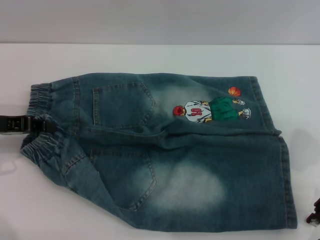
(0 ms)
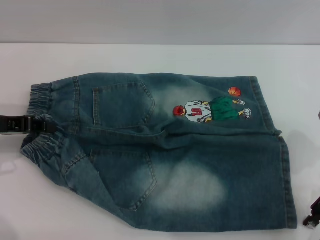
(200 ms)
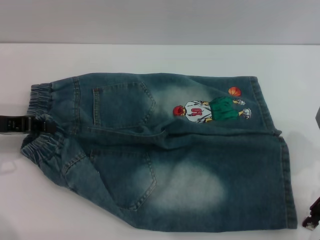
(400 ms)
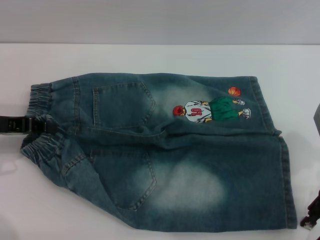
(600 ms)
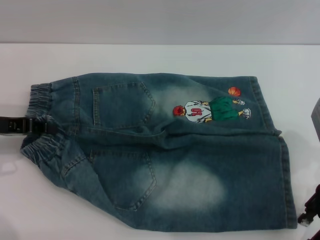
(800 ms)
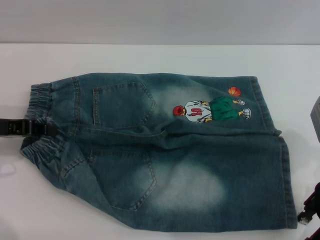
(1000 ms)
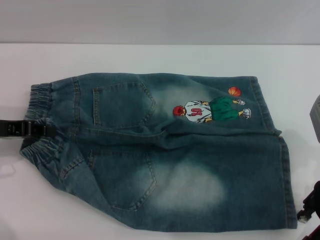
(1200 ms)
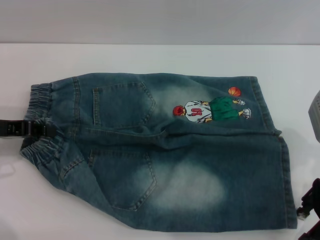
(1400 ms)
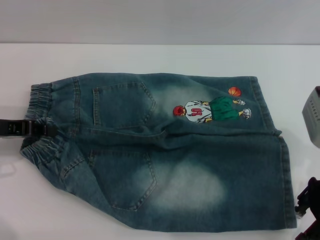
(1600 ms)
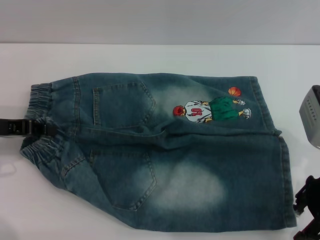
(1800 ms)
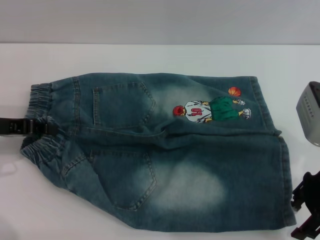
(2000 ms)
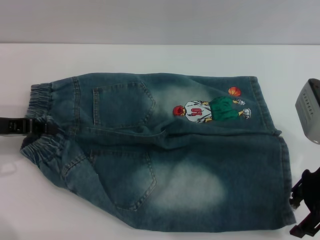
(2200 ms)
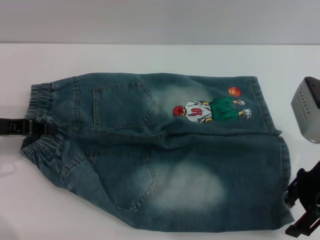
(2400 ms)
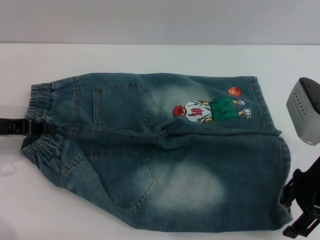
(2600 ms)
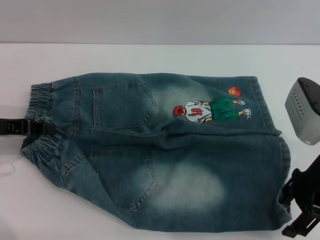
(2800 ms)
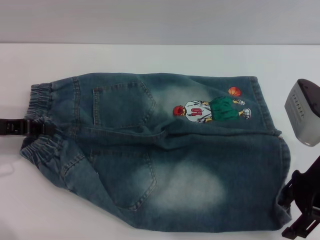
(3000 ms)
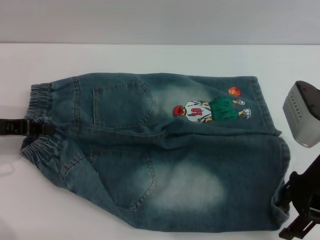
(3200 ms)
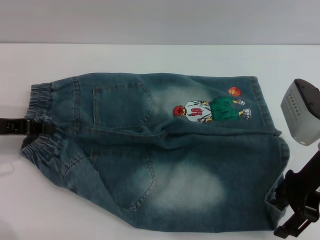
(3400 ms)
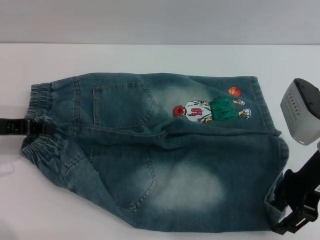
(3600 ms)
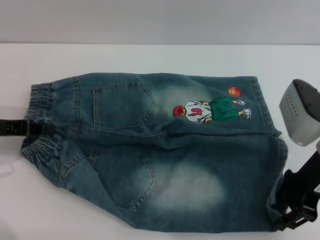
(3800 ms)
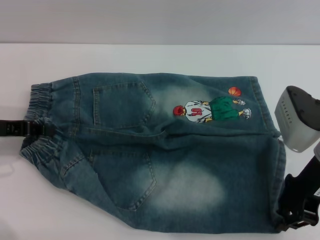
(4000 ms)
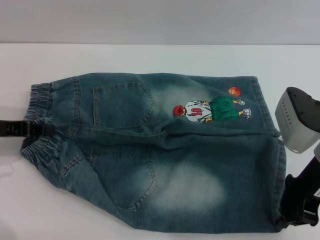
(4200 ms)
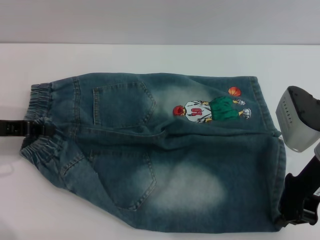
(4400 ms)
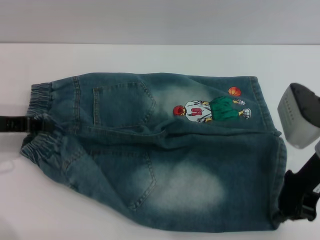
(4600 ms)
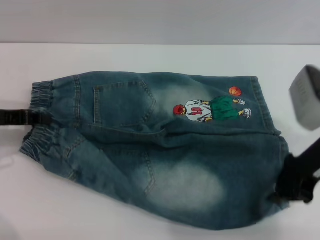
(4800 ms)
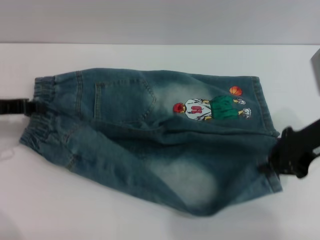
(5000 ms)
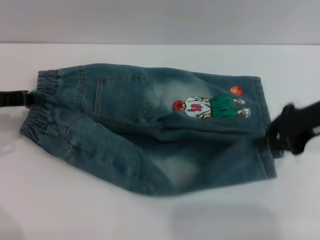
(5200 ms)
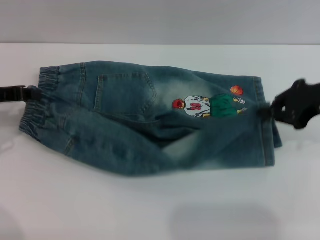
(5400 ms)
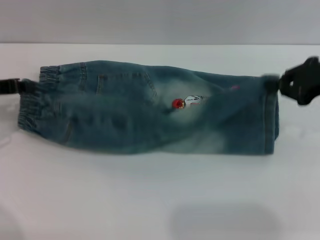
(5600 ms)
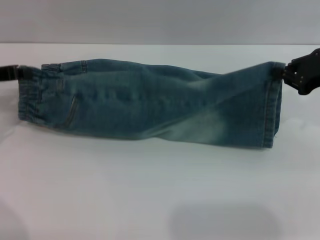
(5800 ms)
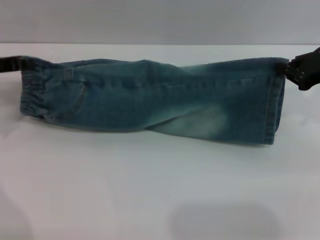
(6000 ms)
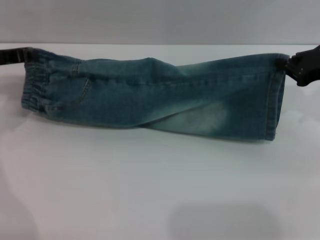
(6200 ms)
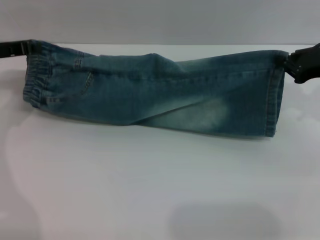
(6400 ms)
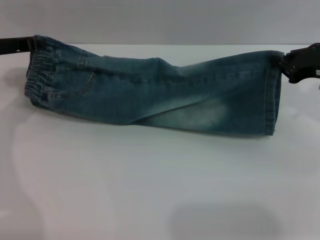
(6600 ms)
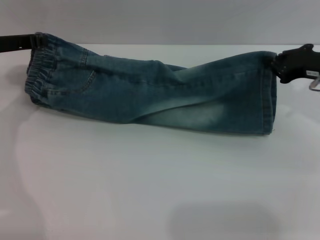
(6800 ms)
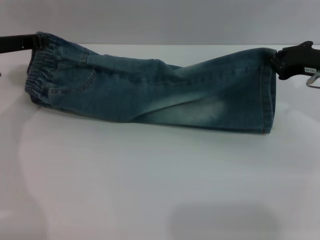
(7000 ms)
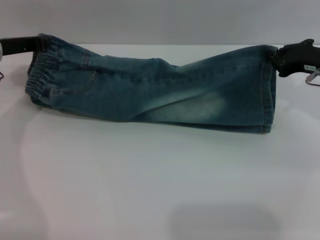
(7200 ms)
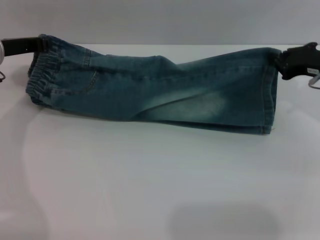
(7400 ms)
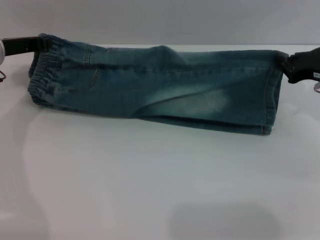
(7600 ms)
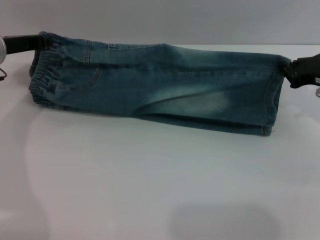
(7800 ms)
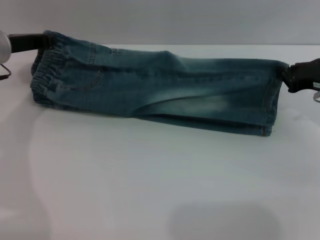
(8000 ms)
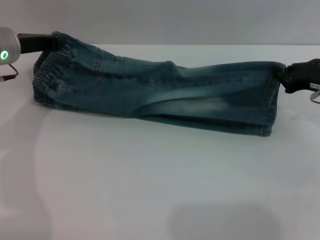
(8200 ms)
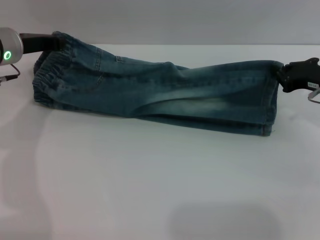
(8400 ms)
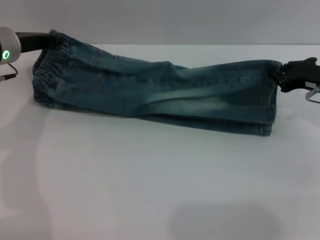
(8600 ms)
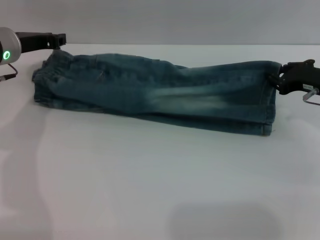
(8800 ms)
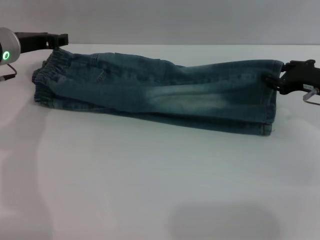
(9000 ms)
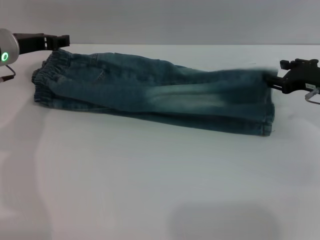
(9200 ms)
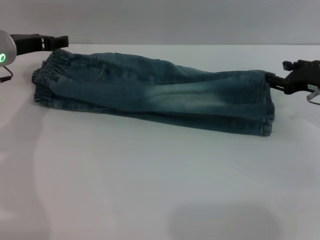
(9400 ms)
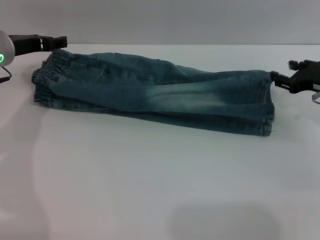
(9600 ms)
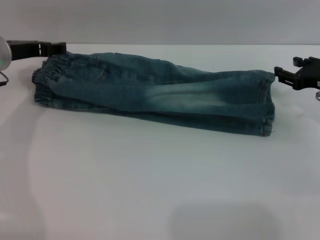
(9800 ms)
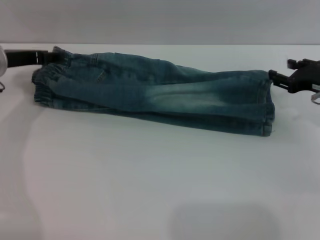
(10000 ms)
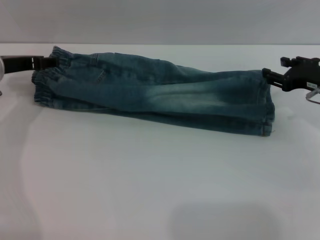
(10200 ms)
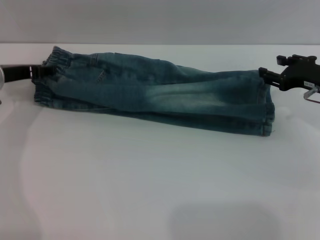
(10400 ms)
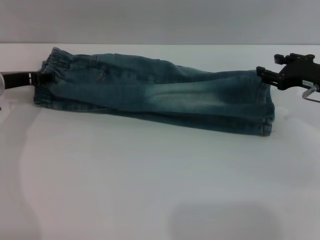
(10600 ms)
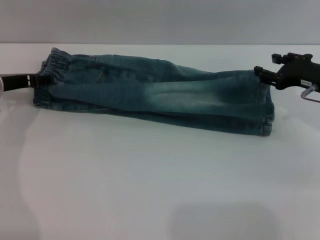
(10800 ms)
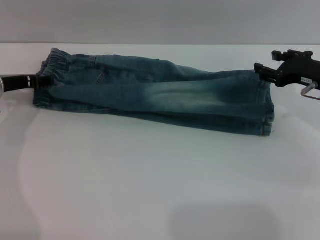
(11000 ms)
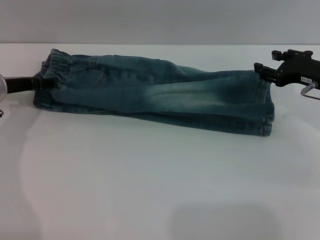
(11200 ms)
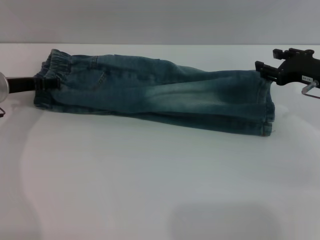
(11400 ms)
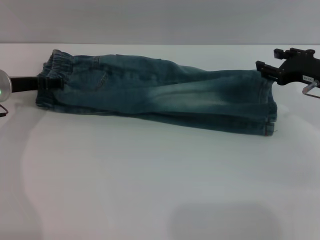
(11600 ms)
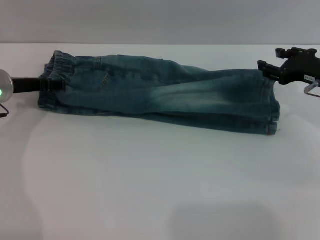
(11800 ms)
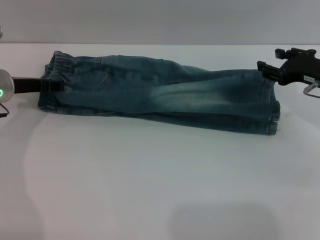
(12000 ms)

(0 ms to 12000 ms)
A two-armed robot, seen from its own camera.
Step, 0 ms - 9600 ms: Fold the bottom of the pants upward with both grippers.
0 ms - 3000 ms: The grippers move only a little.
3000 ms - 4400 ms: The right gripper closes its fingers.
4400 ms - 6000 ms: The right gripper moves to the right and forward, about 10 cm; the left gripper travels forward by approximately 5 cm.
6000 ms - 7600 ms: The left gripper shifts by about 5 cm.
7600 ms - 9000 ms: The left gripper opens its fingers. The right gripper opens.
9000 ms - 10400 ms: The right gripper opens. Meanwhile the left gripper ends up some 5 cm from where it was, and opens.
10400 ms - 12000 ms: The grippers stay close to where they were, moving slightly.

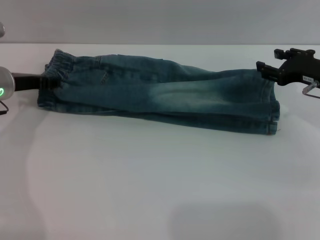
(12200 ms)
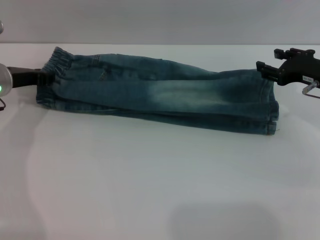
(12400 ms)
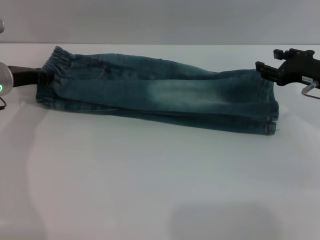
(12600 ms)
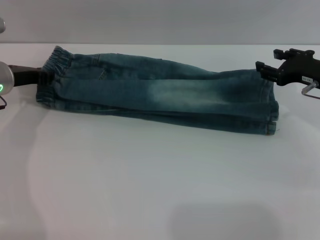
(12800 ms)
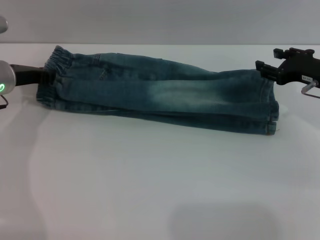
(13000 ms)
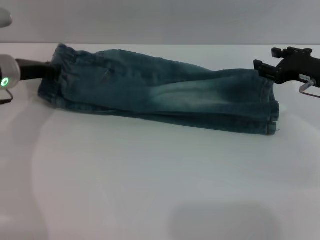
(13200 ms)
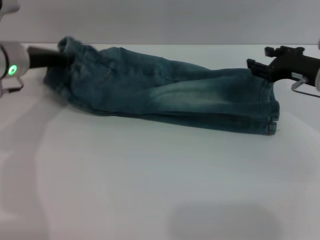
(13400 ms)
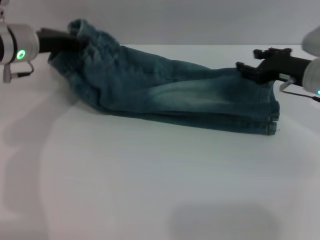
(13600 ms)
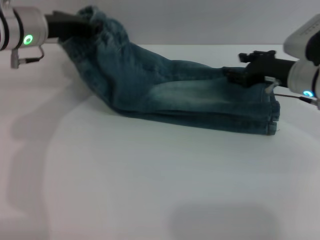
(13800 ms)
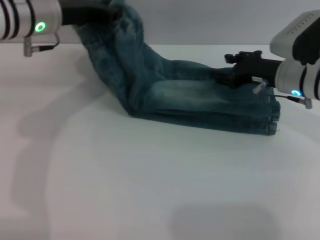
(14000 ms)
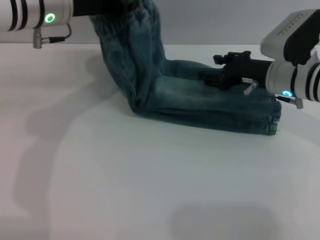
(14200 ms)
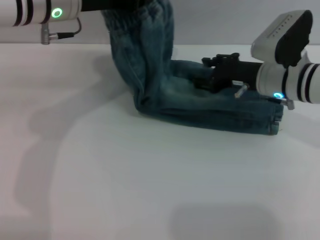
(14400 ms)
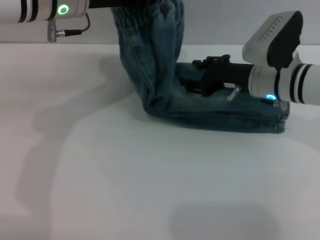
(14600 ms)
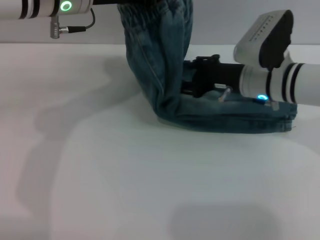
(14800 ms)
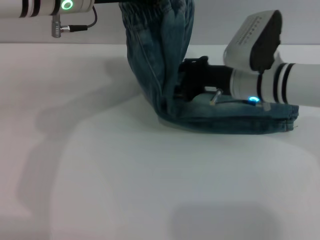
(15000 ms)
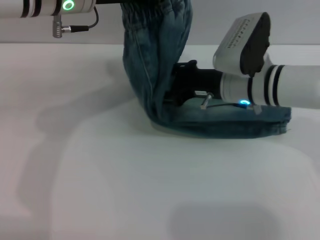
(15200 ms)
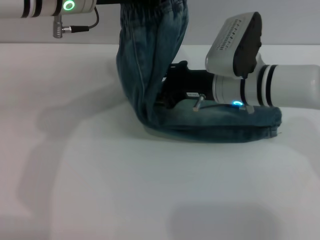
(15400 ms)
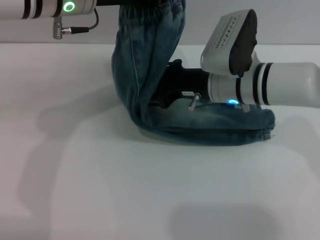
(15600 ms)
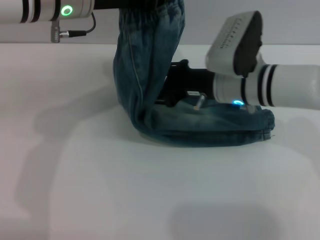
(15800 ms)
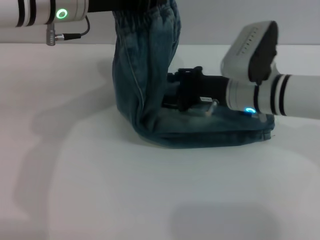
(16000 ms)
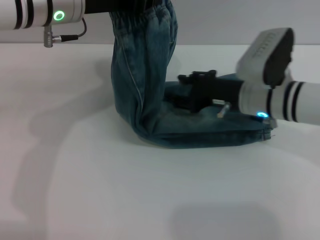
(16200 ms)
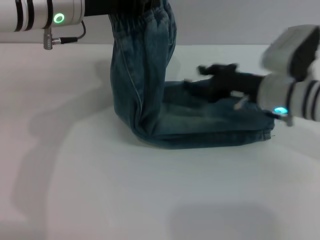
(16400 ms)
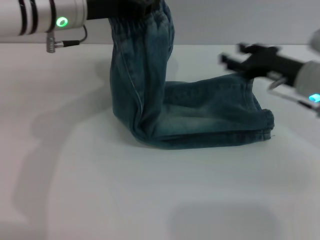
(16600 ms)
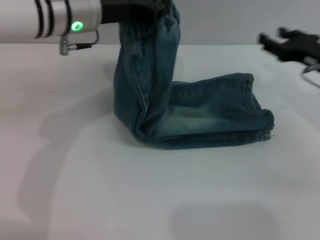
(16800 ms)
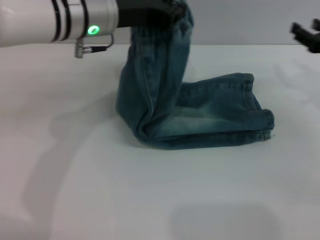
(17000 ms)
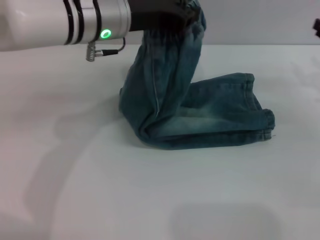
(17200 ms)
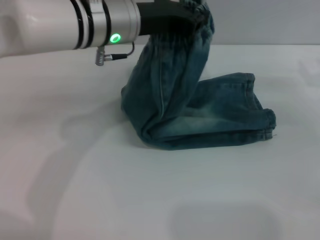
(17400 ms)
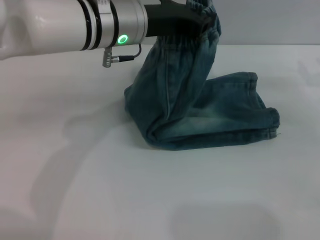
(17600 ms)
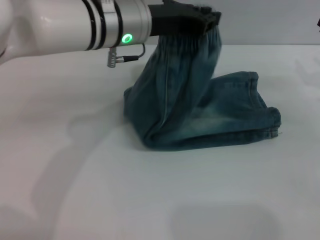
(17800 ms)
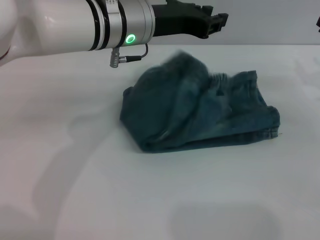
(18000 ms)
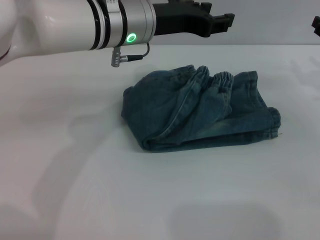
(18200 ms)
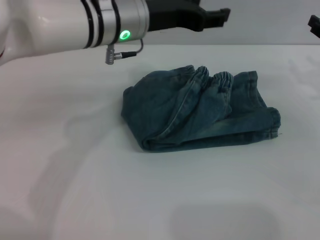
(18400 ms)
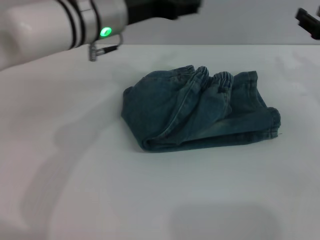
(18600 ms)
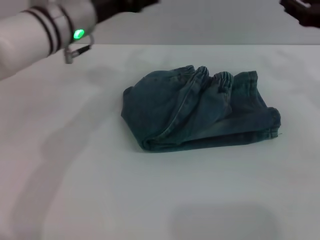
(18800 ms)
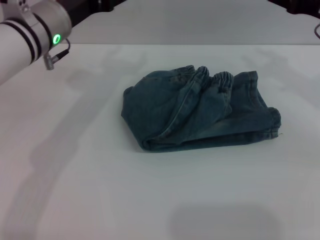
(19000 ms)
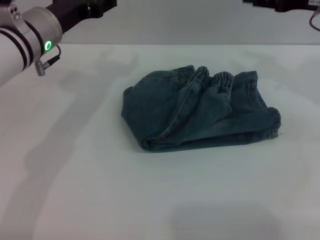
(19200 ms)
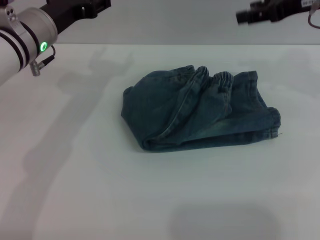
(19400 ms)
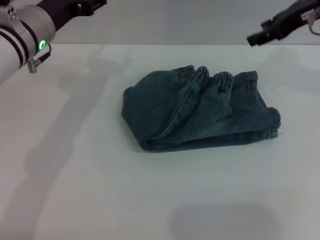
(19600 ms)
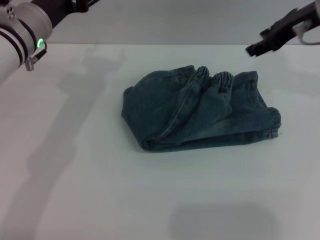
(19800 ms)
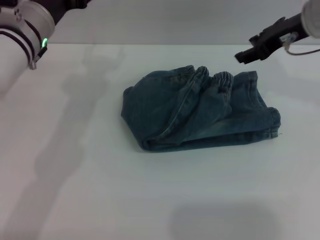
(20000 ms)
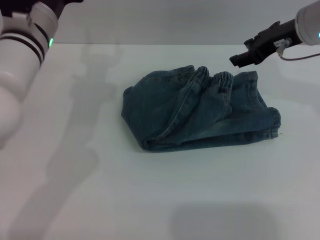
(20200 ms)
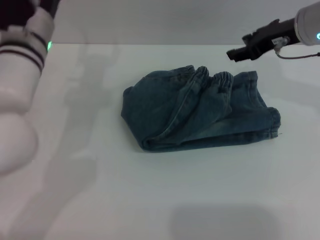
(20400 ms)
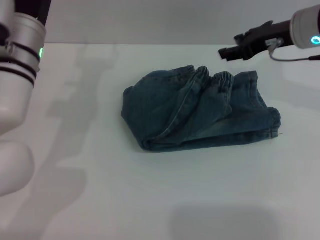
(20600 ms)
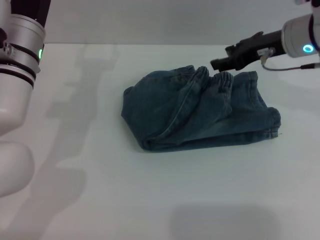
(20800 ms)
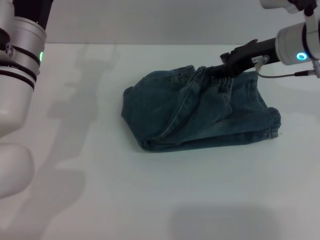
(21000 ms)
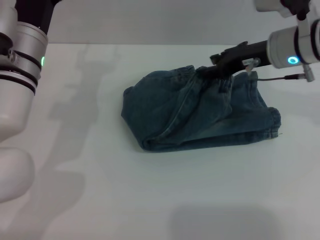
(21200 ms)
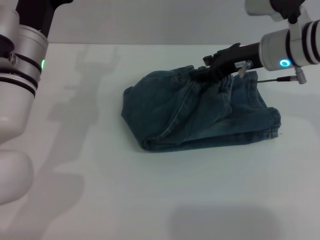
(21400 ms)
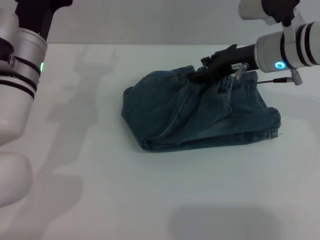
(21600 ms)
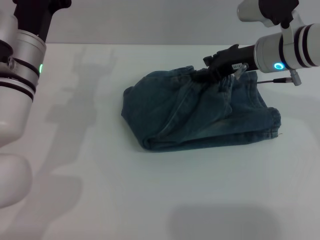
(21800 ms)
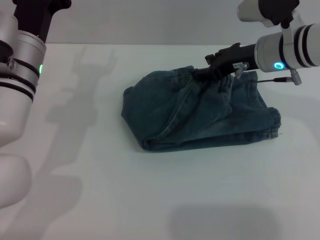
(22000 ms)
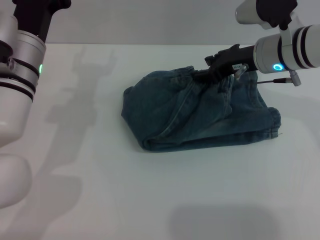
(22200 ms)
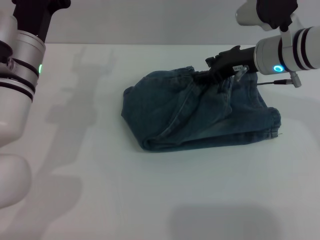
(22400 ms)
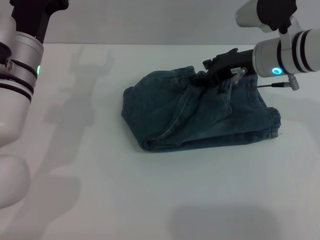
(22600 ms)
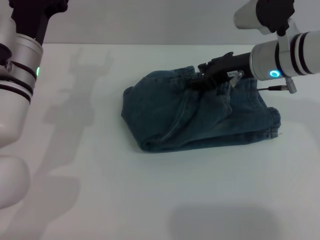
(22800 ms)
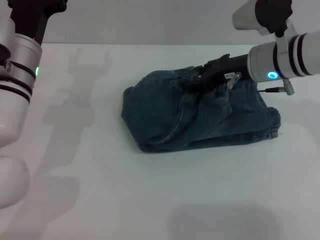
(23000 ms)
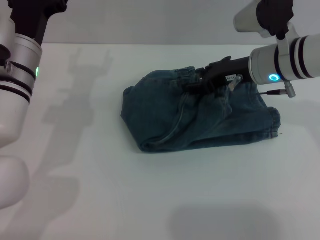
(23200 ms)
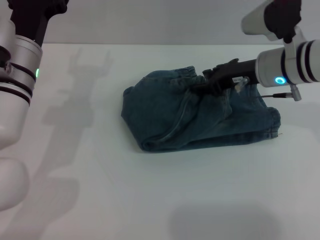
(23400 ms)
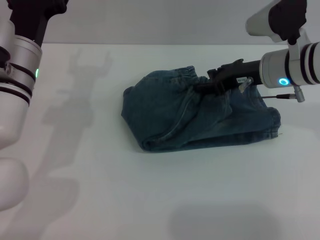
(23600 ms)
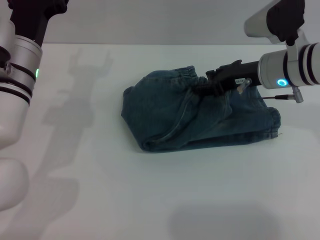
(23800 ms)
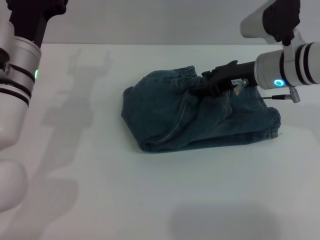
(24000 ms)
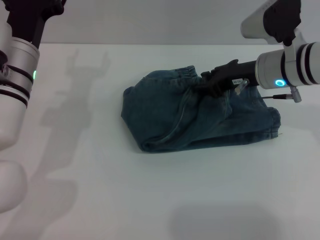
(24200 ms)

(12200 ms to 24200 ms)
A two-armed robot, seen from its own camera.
Step, 12200 ms - 18400 ms: Fold the pants from left to right with the left gripper.
12200 ms - 13800 ms: The right gripper goes about 5 cm to the left, while the left gripper goes about 10 cm upward and to the right, and closes its fingers.
13800 ms - 15200 ms: The left gripper goes approximately 10 cm to the right and upward. The right gripper goes approximately 10 cm to the left.
15200 ms - 16600 ms: The right gripper goes approximately 10 cm to the right.
16600 ms - 18200 ms: The grippers both shift to the right by about 10 cm. The left gripper opens up.
18200 ms - 19800 ms: The left gripper travels to the left by some 10 cm, and opens its fingers. Meanwhile the right gripper travels upward, to the left and forward by roughly 20 cm.
19800 ms - 21200 ms: The right gripper moves downward, about 5 cm.
21200 ms - 24200 ms: The grippers move only a little.
